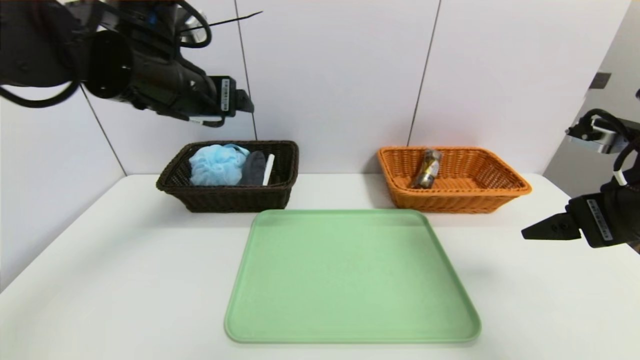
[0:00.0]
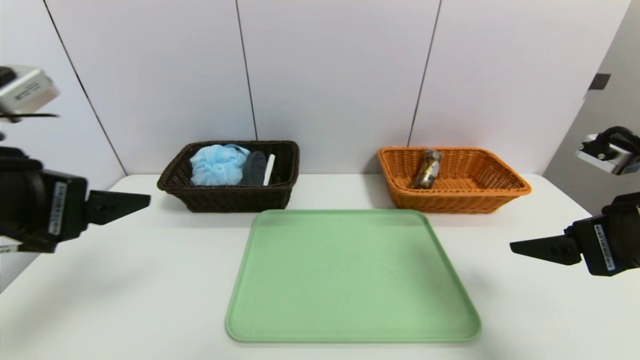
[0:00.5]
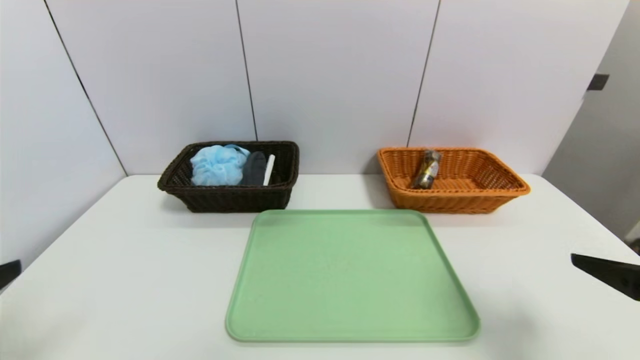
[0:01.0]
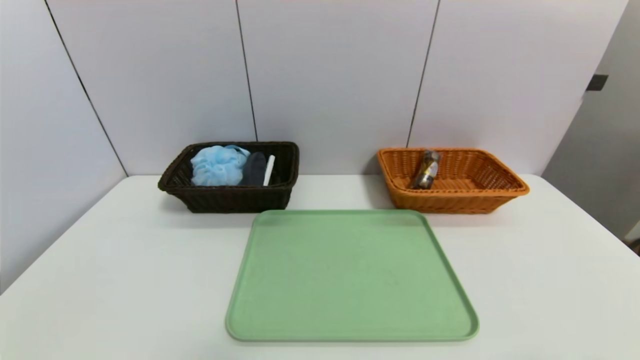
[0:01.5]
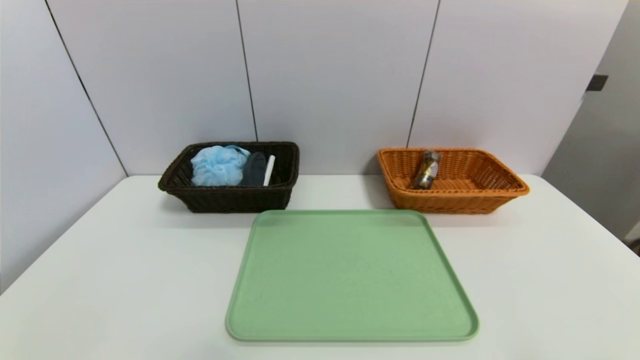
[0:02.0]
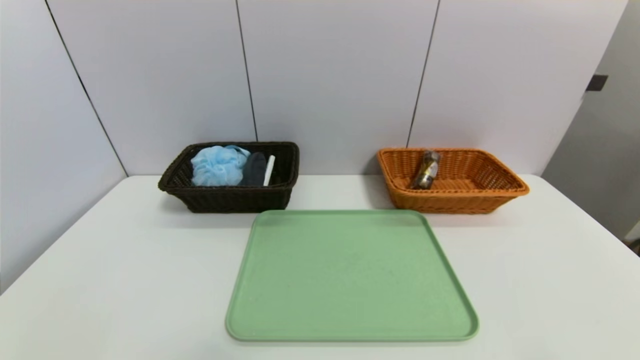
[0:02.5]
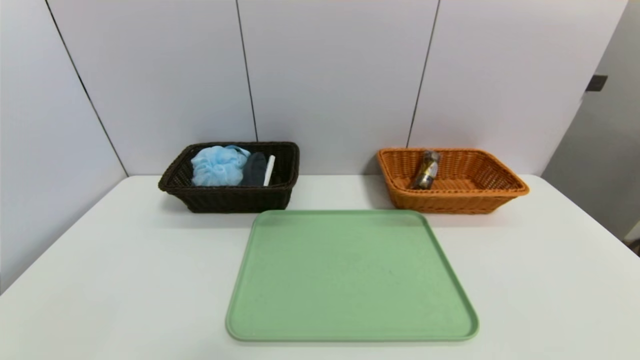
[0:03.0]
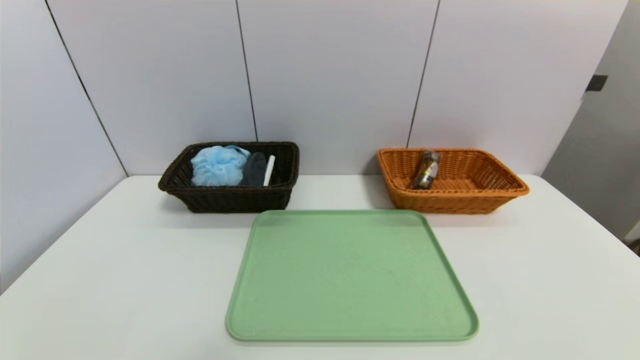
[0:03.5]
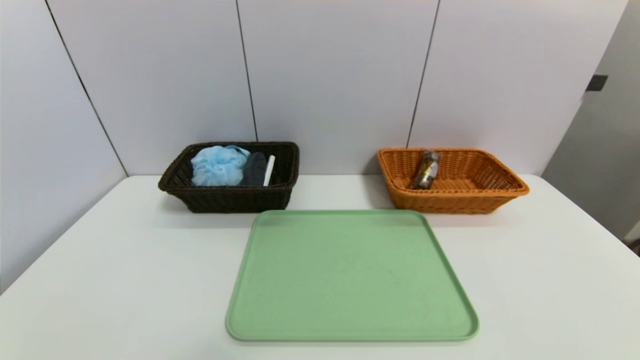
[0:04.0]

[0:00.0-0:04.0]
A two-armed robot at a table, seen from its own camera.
Task of the whole recording: place the food in the right basket with the right gripper, and place the non food items in the left basket with the left gripper.
0:00.0 to 0:02.0: The right gripper goes some 25 cm backward and downward. The left gripper shifts approximately 40 cm backward and downward.
